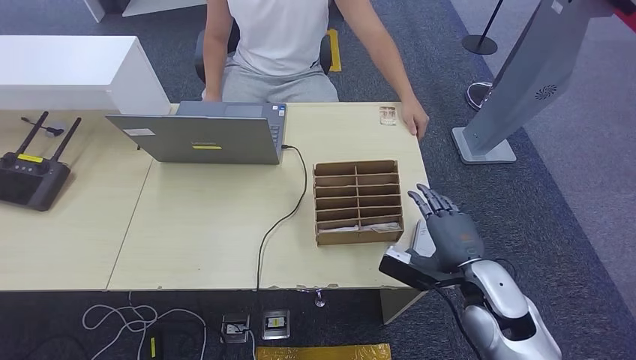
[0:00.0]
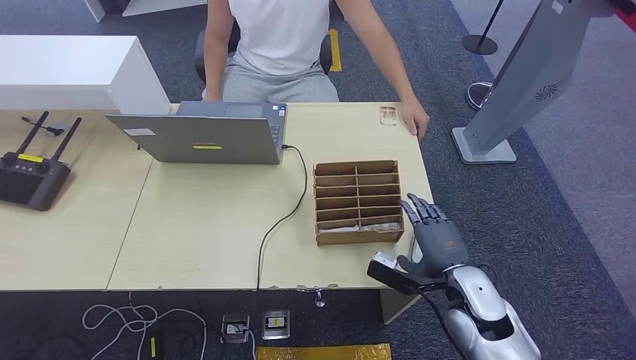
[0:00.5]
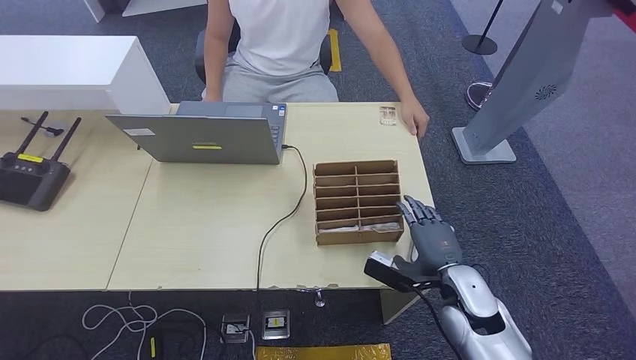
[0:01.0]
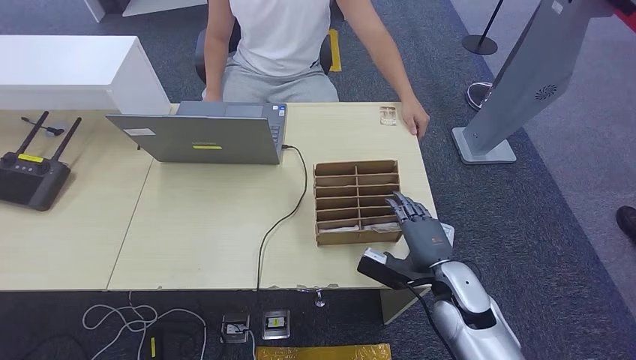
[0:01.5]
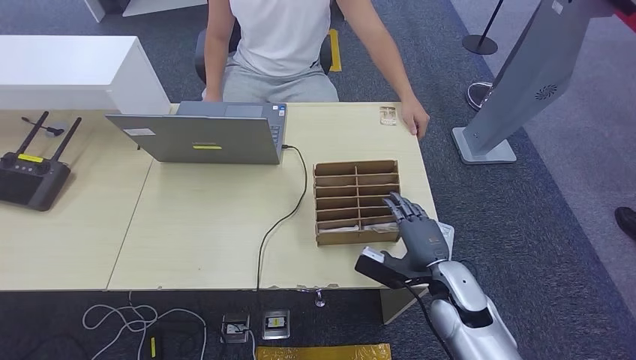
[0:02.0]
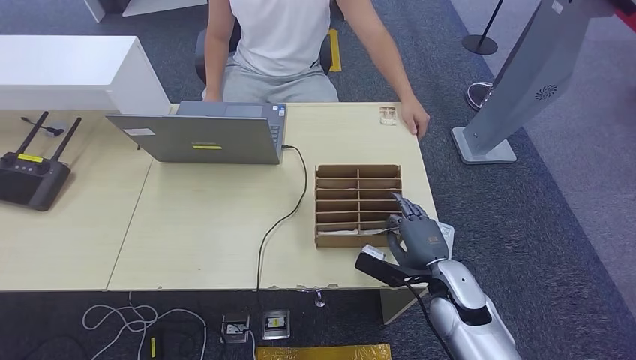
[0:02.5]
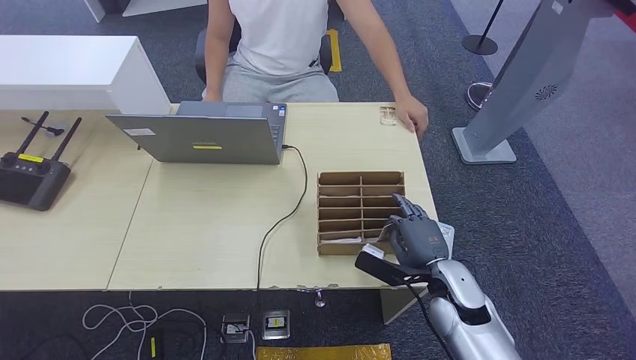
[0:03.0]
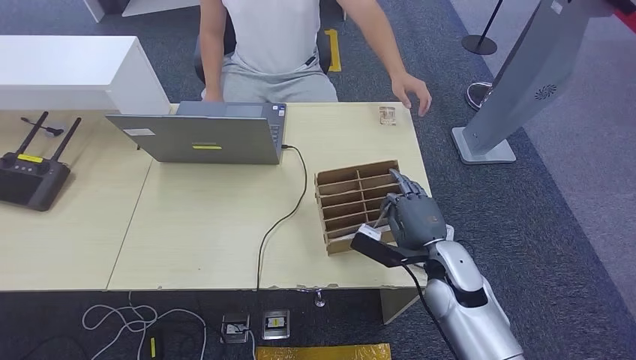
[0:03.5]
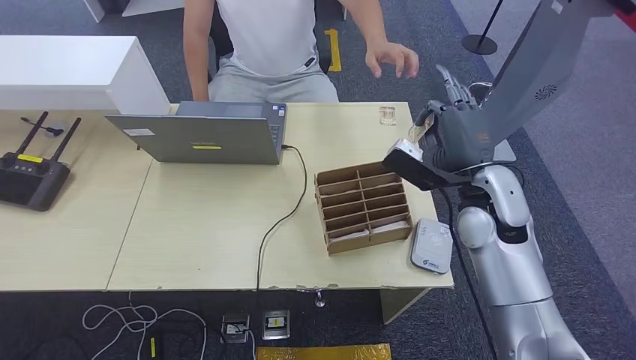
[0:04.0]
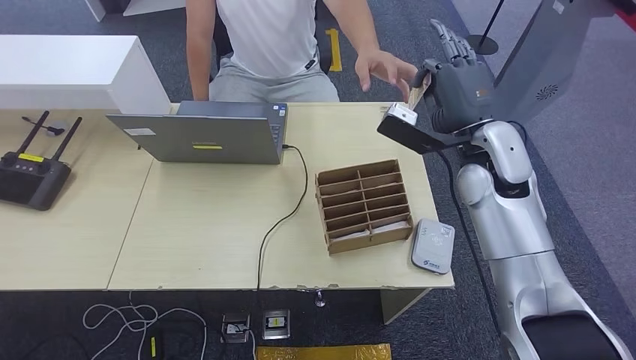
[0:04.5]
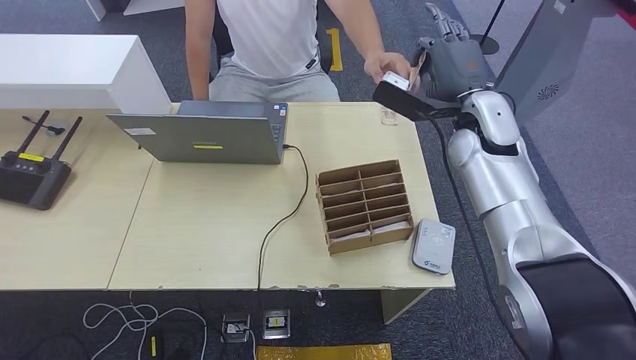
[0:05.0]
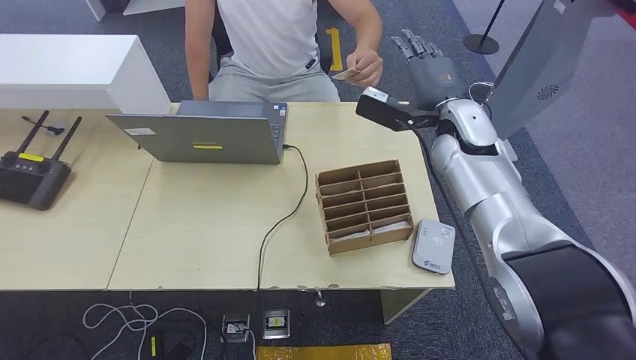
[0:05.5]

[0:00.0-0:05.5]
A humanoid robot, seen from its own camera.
Step, 0:00.0 to 0:03.5: Pick up the room key from the key card box.
Step, 0:04.0 to 0:05.5: Hand the room key to the person.
0:00.0 to 0:02.0: The right hand moves approximately 5 cm.
0:02.0 to 0:03.5: There are only small adjustments of the hands.
0:03.5 to 0:05.5: The right hand heads upward and forward, covering some 25 cm.
